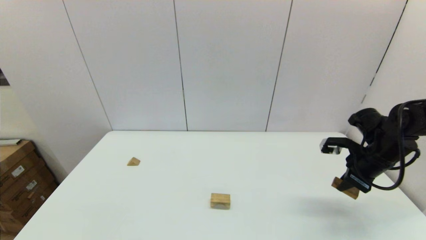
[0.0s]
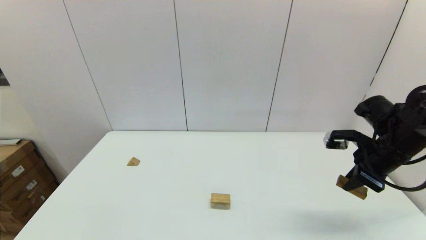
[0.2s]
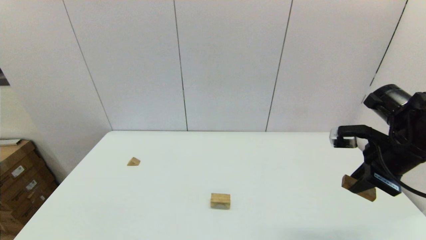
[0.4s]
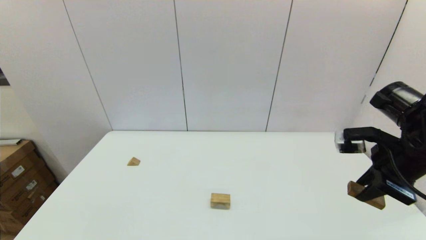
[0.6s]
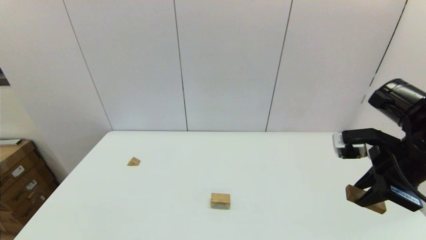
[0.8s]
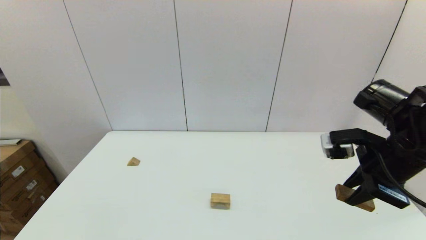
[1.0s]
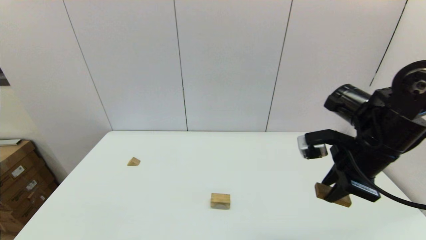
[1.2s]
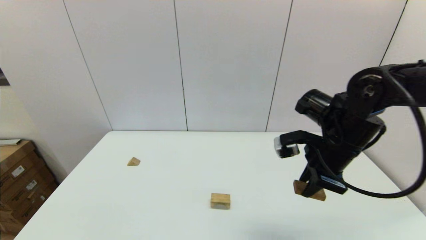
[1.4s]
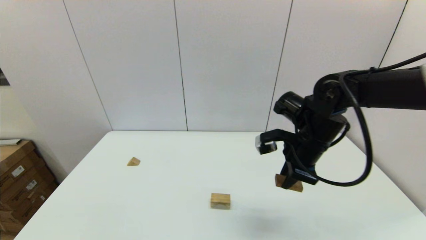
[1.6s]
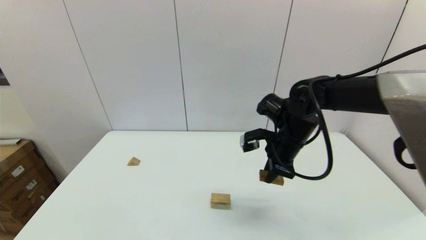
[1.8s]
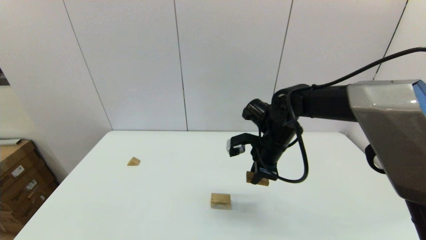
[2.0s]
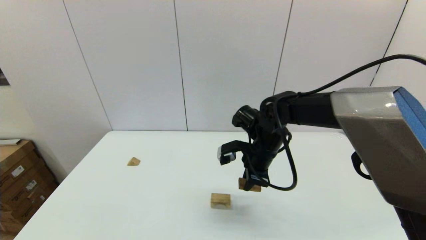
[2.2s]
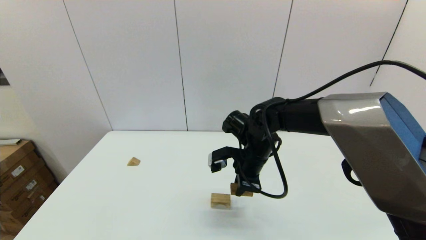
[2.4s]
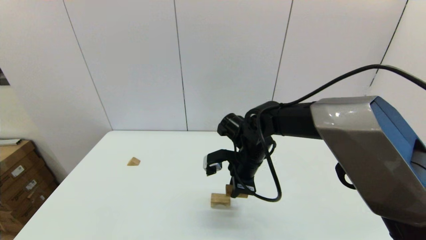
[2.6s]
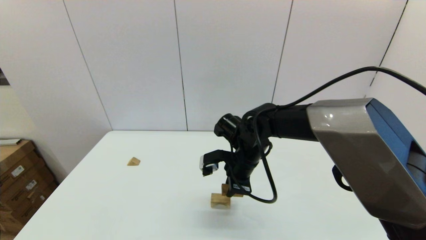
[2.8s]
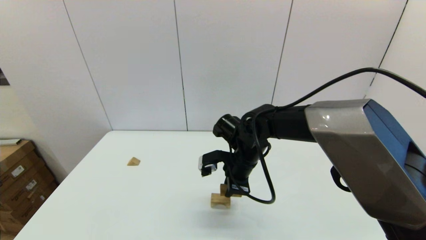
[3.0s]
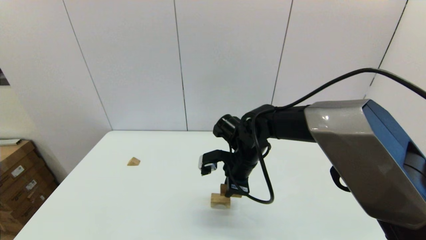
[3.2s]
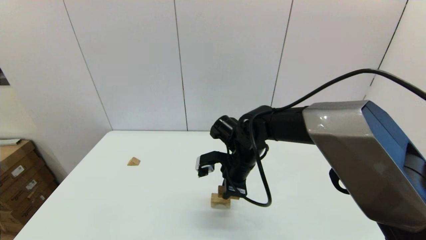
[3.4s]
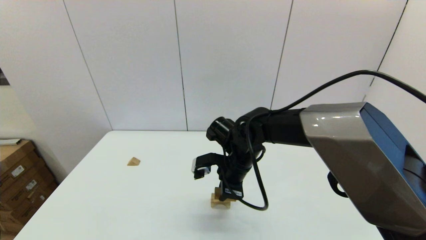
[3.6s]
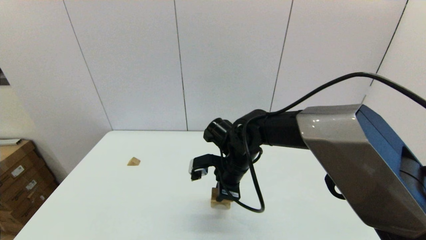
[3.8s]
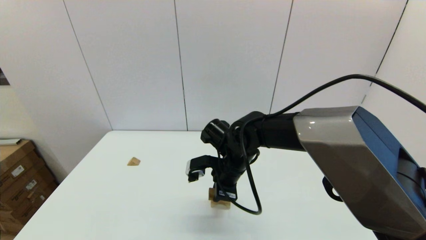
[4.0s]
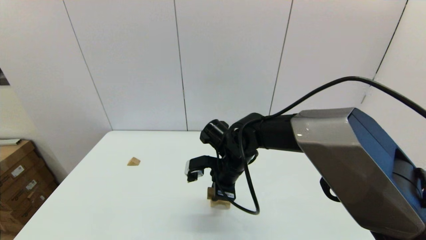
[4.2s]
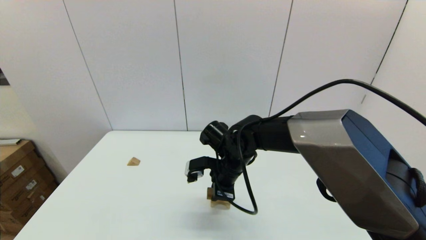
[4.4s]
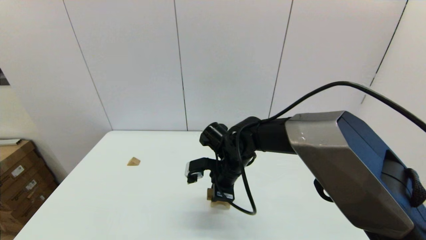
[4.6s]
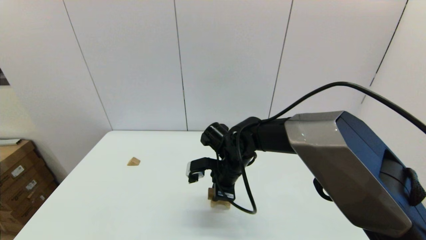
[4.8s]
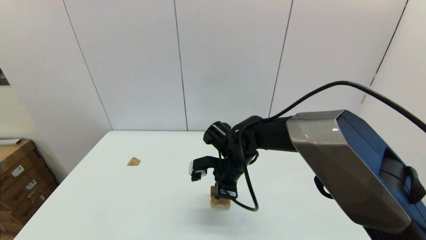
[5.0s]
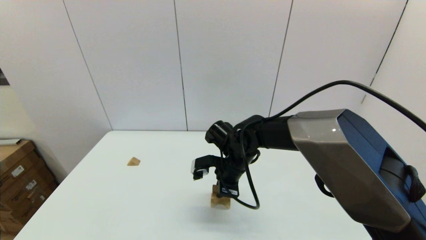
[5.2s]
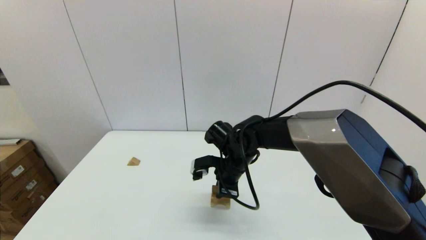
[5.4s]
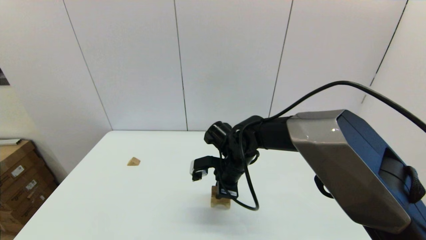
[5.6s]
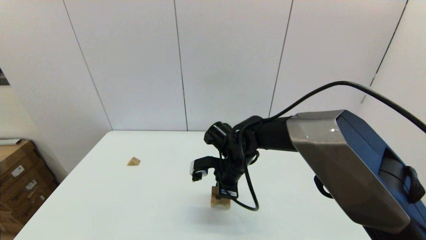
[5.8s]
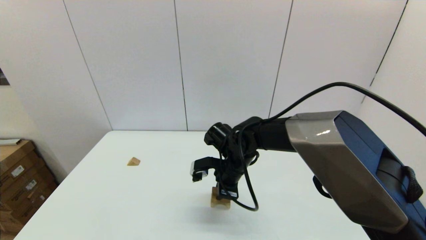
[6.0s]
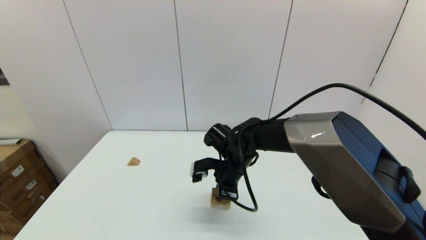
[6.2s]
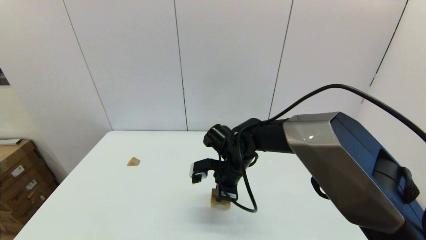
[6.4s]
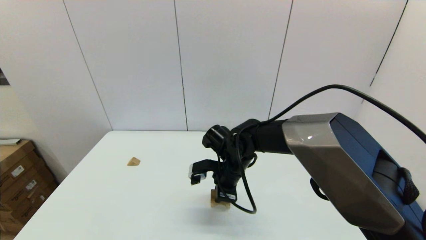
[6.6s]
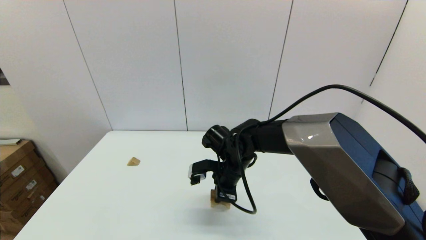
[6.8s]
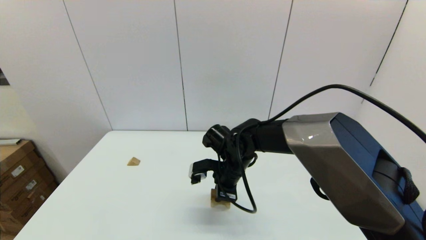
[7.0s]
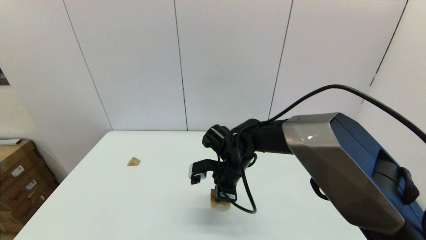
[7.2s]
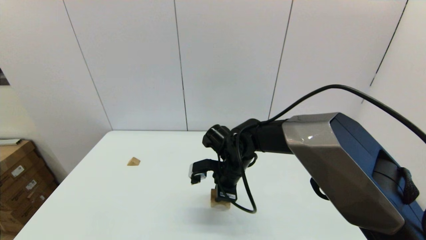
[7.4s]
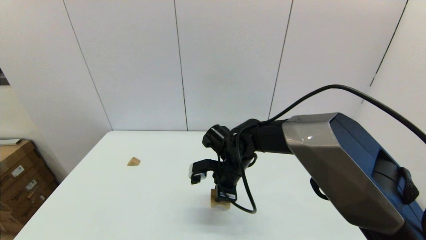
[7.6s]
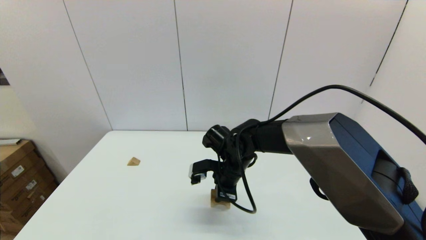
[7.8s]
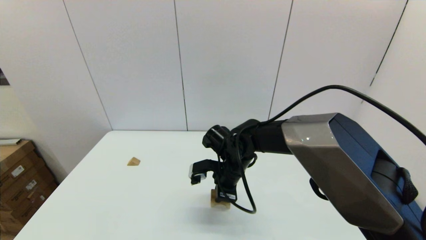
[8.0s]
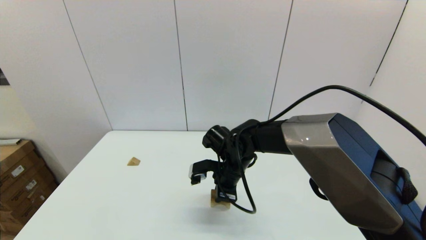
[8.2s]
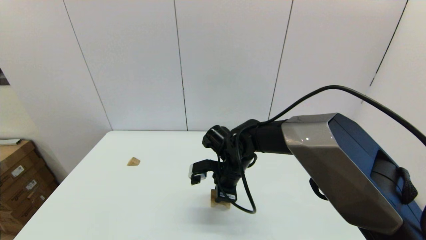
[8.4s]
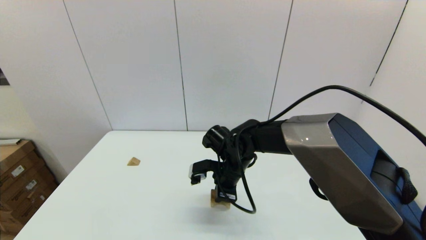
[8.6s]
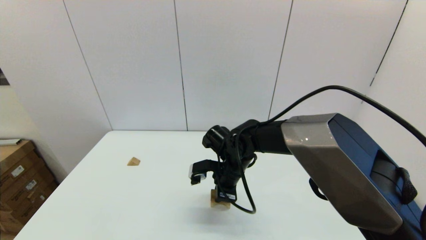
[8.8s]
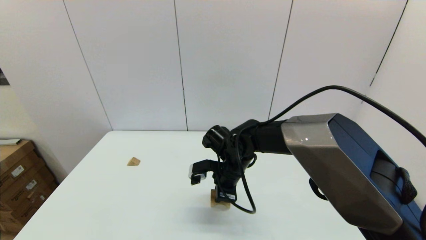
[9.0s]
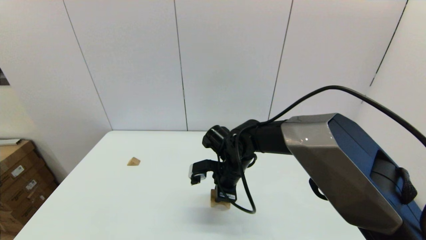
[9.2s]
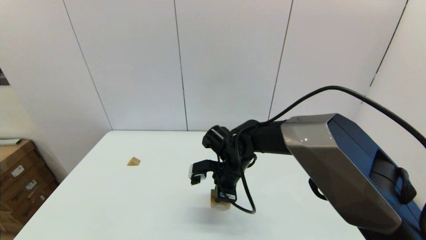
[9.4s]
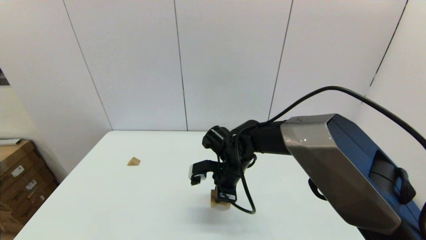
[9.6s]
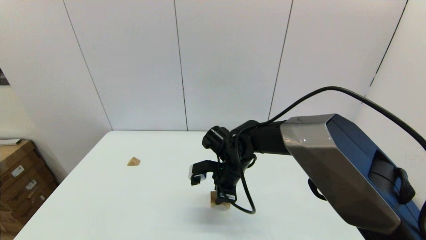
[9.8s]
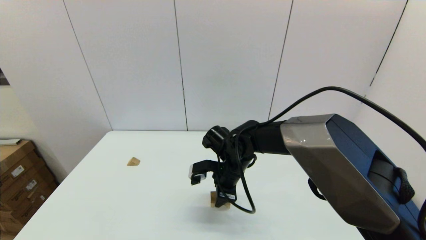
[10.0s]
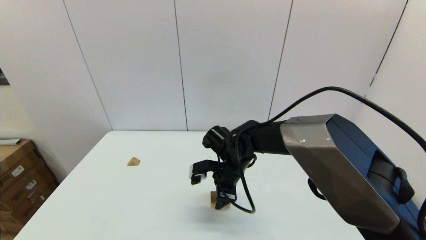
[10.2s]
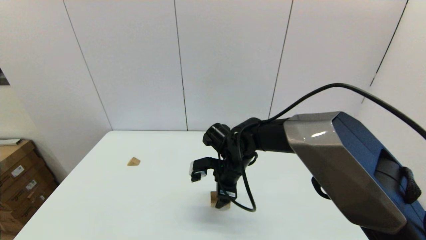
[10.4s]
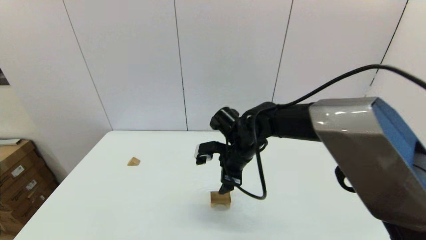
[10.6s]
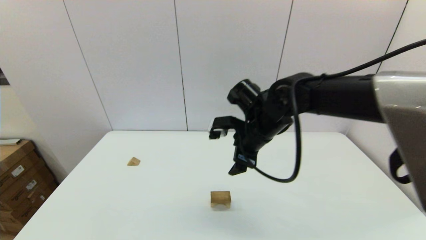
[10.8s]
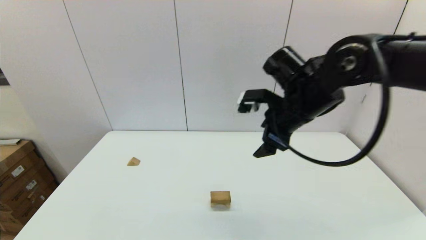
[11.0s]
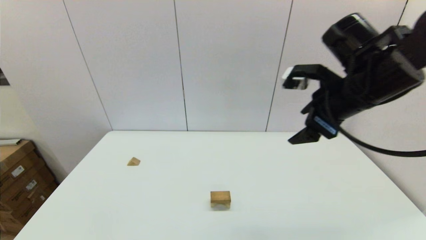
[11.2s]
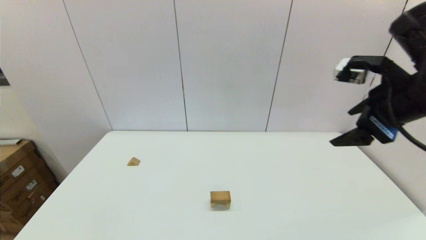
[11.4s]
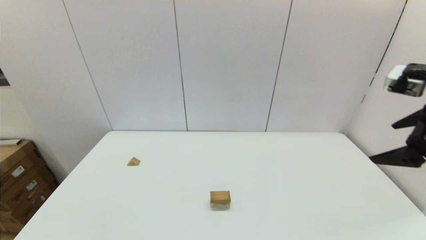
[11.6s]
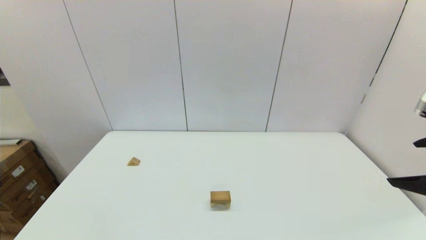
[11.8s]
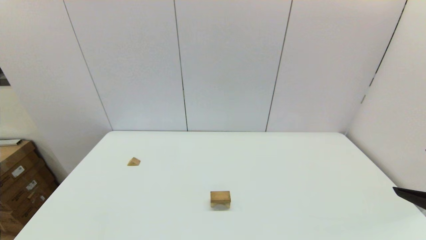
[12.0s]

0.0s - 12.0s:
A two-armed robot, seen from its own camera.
Task of the whole recording: place the arched building blocks in the center of the table, set up the rectangular building blocks, and then set up the triangular building blocks.
Step, 0.0s - 10.0s: Place the box-shaped block onto the arch-shaped block with the right gripper.
0.0s - 1.6s: The right gripper is displaced to the left by about 15 cm.
1.6s - 3.0s: The right gripper moves to the left and downward, some 15 cm.
3.0s - 6.0s: There are only small adjustments of the grippers.
6.0s - 9.0s: The two grippers keep their place.
9.0s - 10.4s: The right gripper opens.
10.4s - 12.0s: The right gripper travels to the right, backward and upward by some 40 cm.

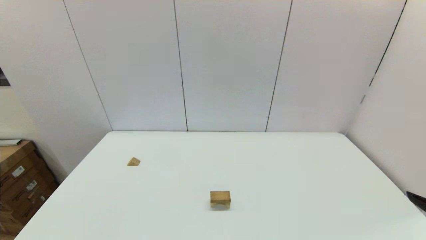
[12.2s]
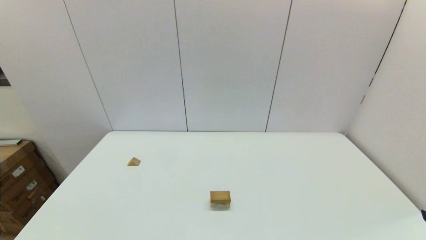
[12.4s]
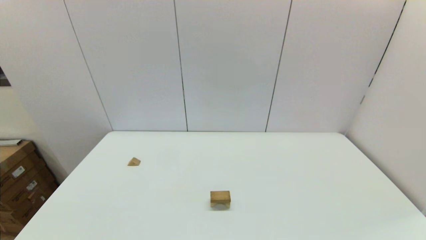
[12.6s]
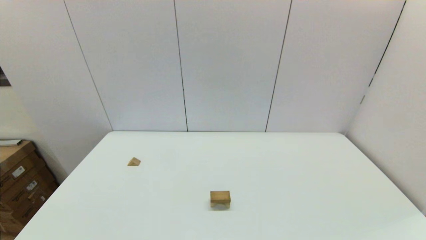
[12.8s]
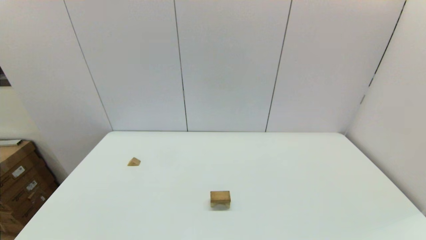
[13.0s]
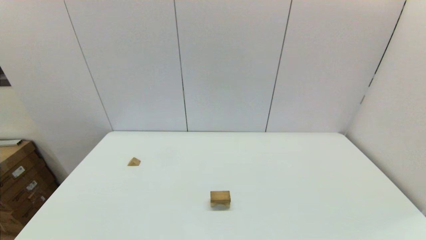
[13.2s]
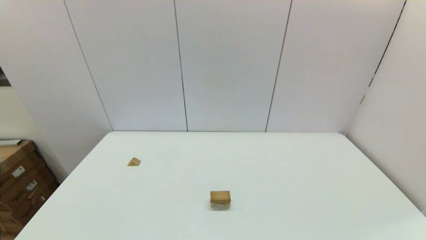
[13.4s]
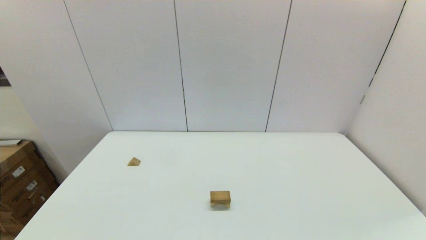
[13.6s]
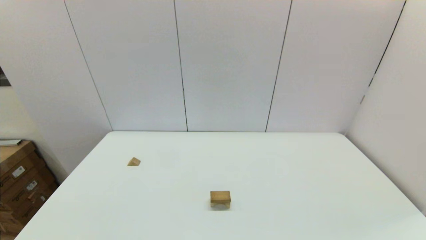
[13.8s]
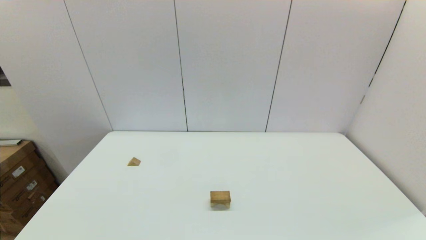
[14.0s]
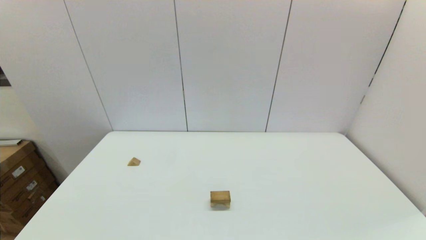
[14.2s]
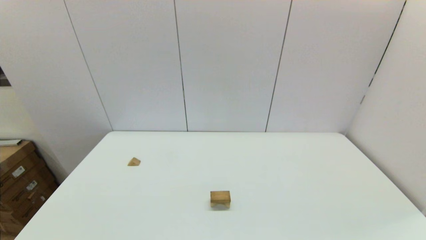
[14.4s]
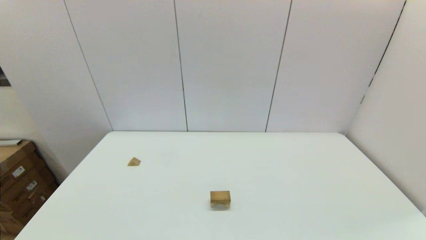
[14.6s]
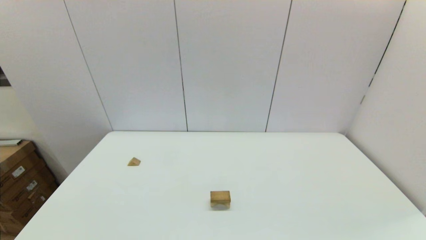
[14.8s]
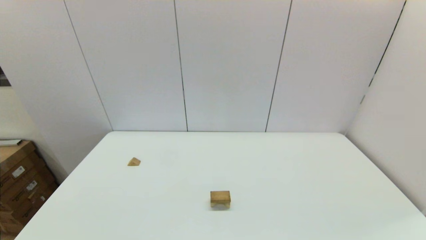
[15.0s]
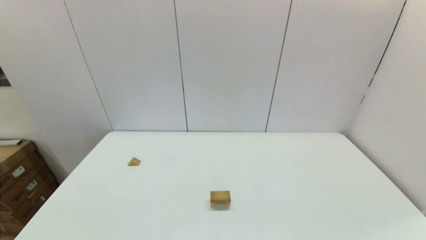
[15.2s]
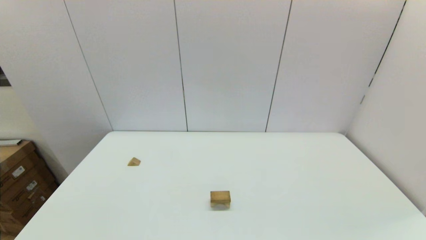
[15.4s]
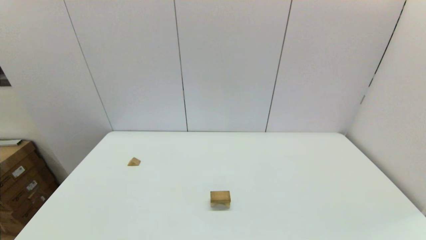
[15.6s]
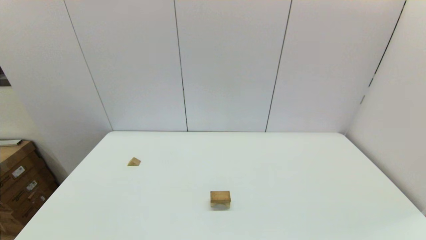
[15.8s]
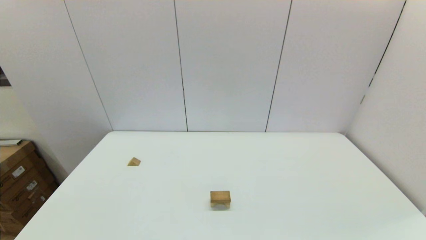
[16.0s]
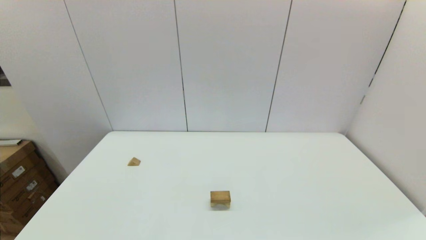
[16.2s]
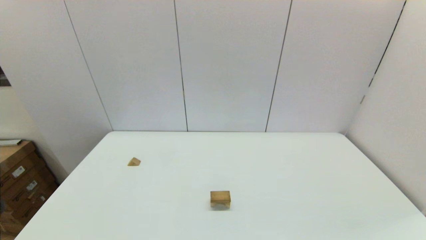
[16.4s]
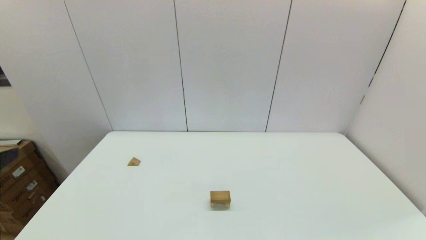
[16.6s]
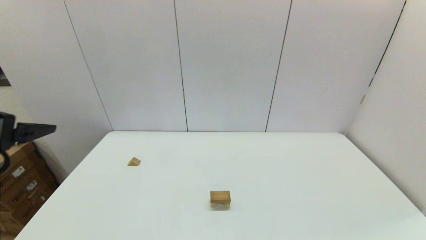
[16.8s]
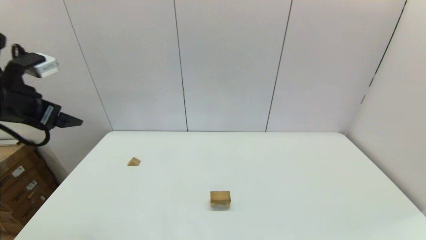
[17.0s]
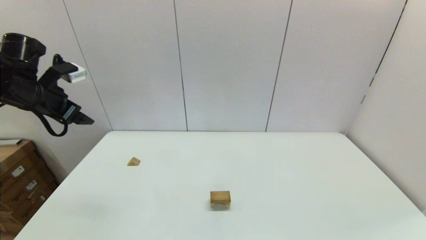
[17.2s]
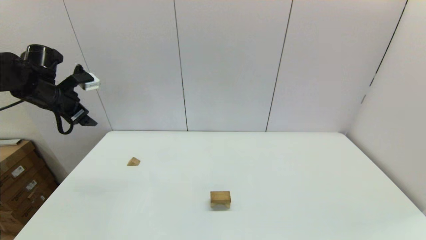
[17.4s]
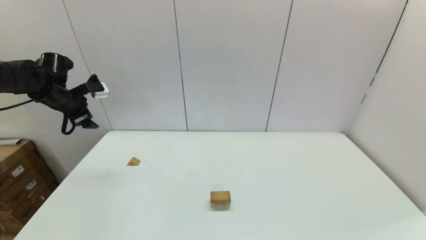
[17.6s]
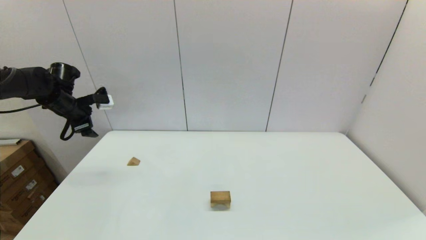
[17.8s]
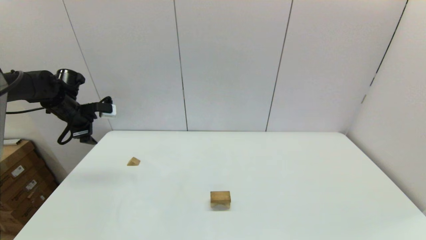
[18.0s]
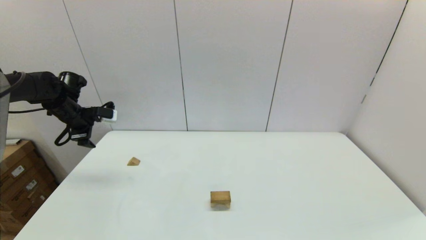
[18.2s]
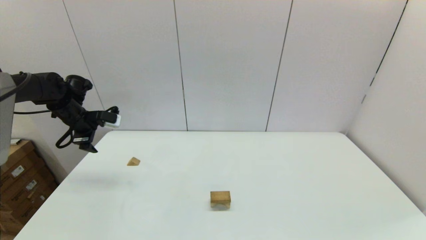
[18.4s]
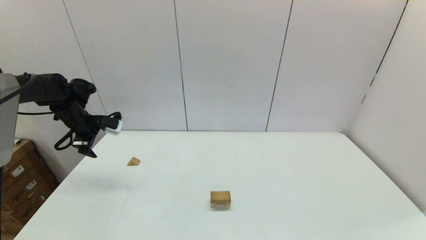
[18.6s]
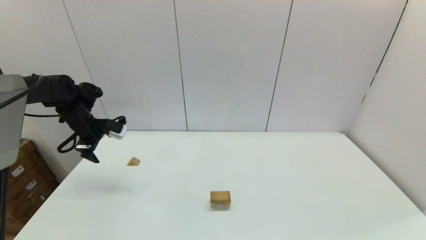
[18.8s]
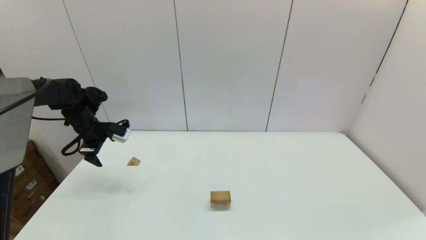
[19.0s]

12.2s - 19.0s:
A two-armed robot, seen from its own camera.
Task of the whole recording: place the arched building blocks in the center of the table, set up the rectangular building blocks, and then set up the triangular building blocks.
13.6s - 15.0s: The two grippers keep their place.
16.2s - 17.6s: The left gripper moves forward, some 40 cm.
17.6s - 19.0s: The left gripper heads downward, covering roughly 10 cm.
